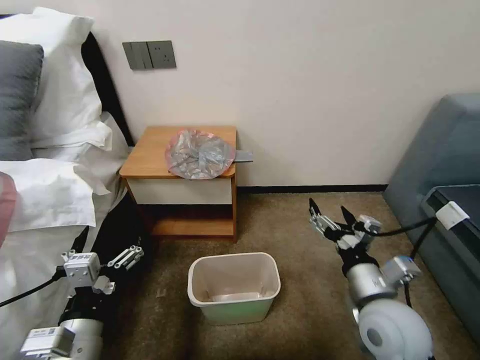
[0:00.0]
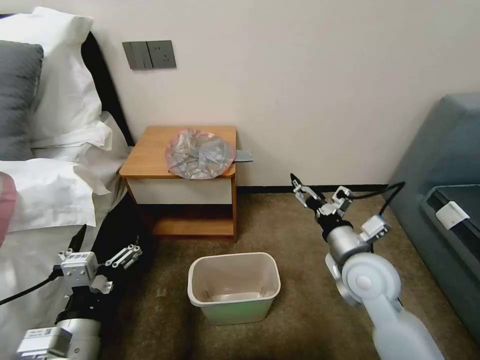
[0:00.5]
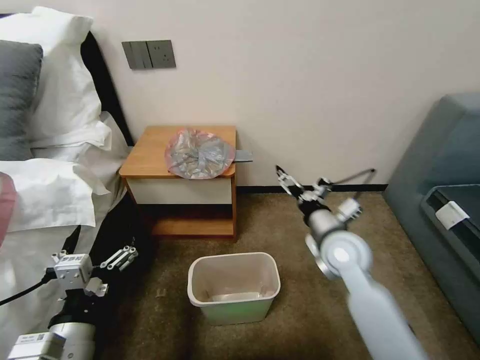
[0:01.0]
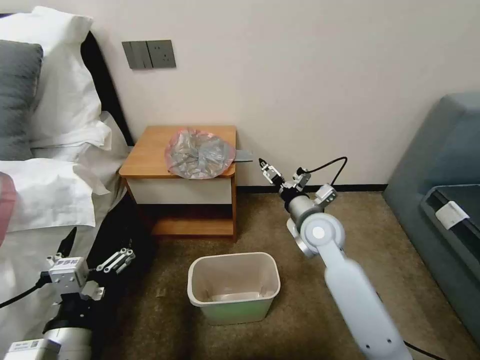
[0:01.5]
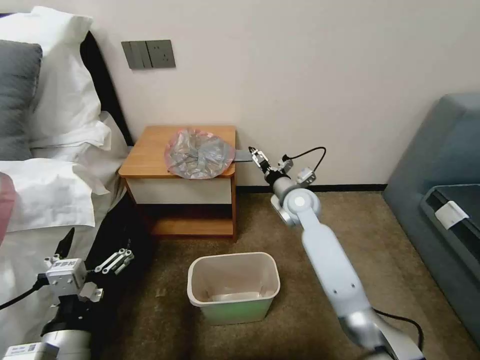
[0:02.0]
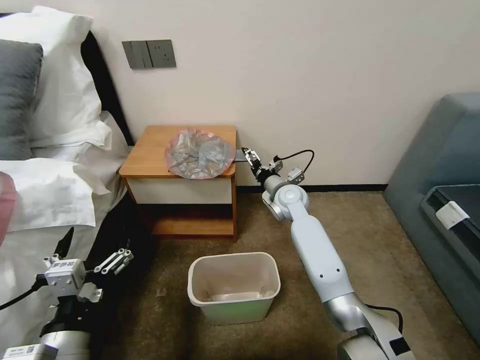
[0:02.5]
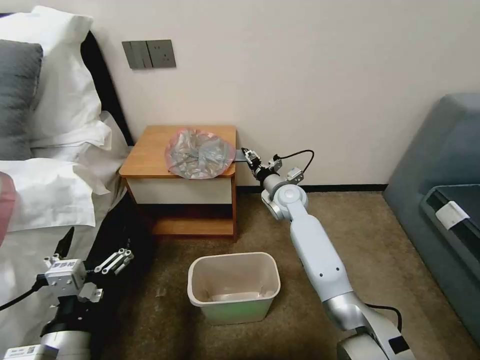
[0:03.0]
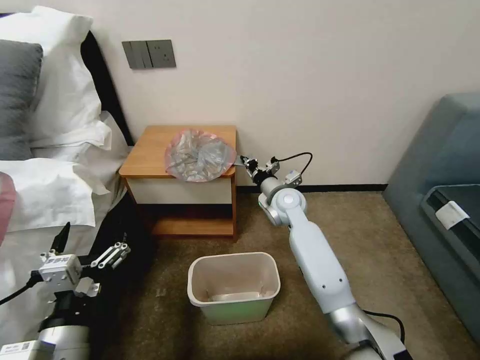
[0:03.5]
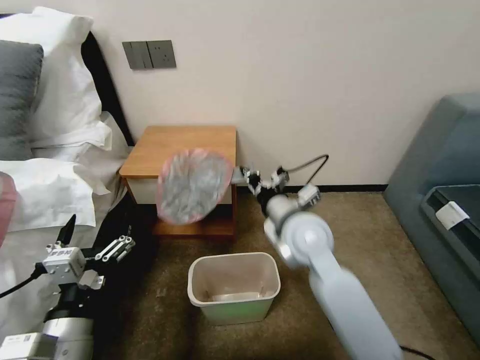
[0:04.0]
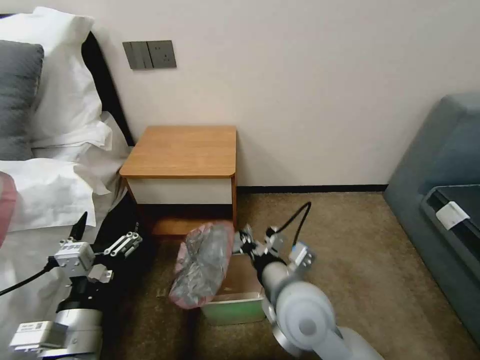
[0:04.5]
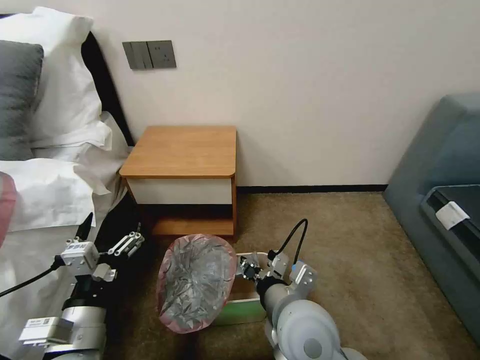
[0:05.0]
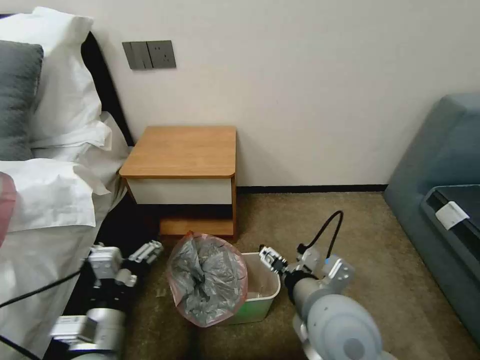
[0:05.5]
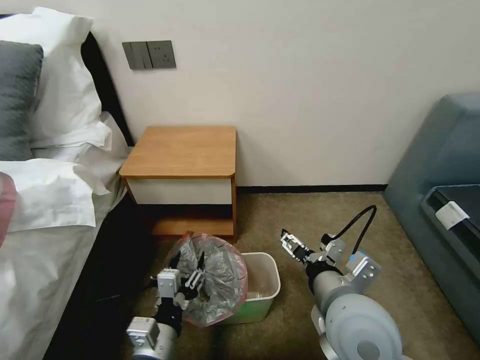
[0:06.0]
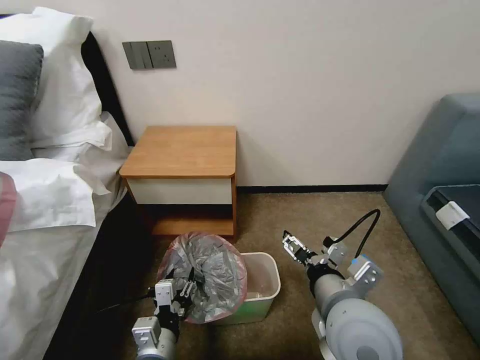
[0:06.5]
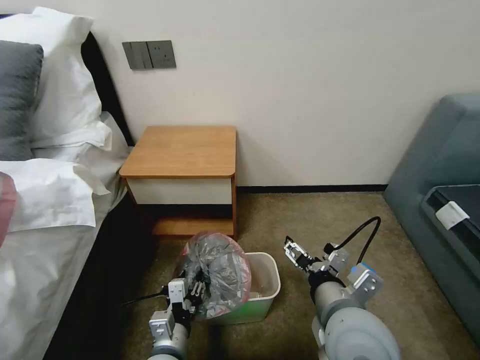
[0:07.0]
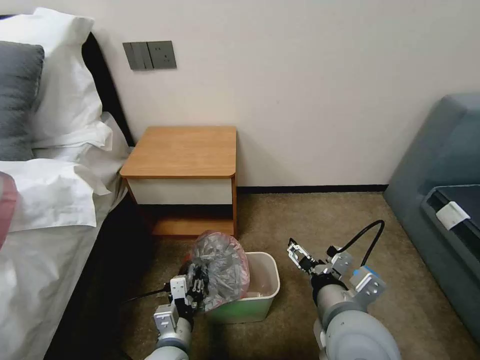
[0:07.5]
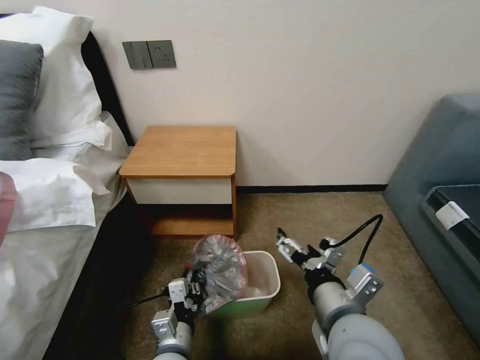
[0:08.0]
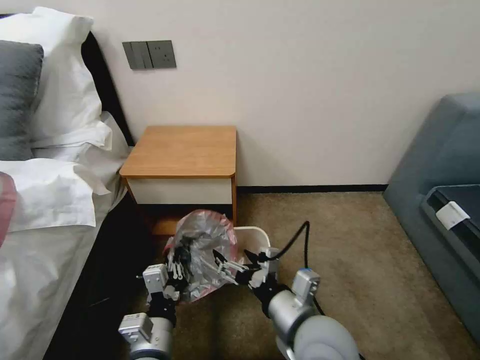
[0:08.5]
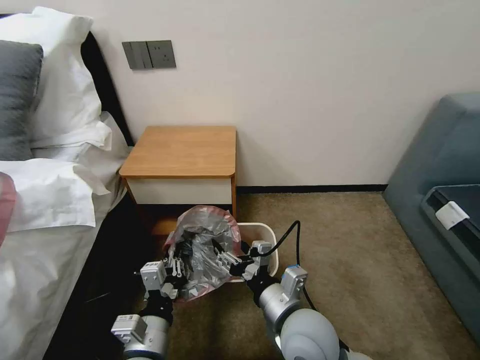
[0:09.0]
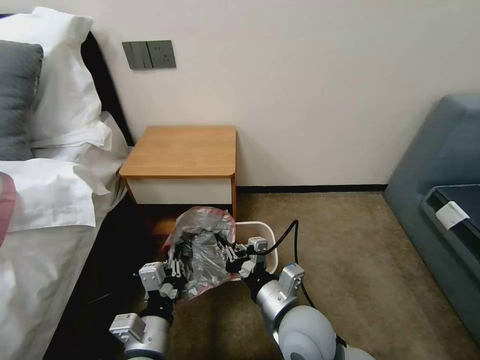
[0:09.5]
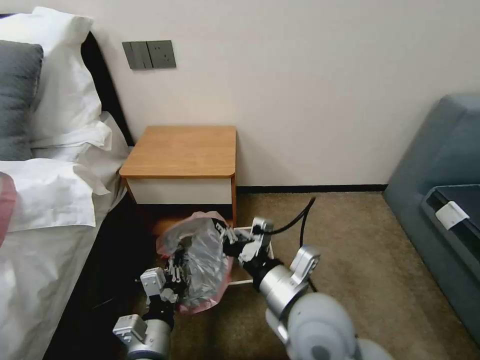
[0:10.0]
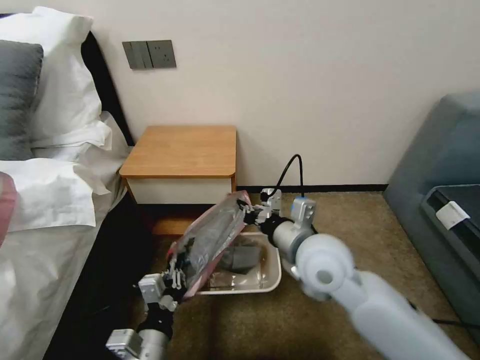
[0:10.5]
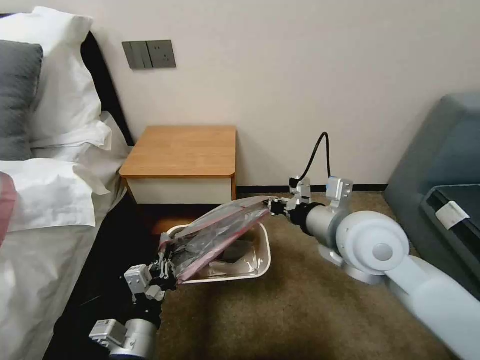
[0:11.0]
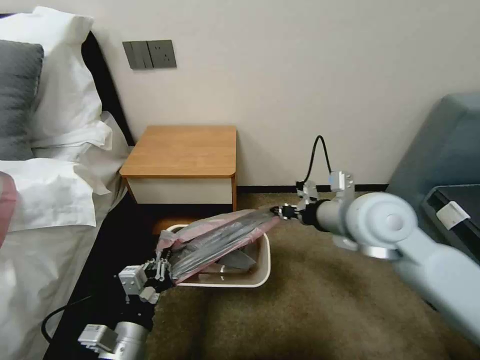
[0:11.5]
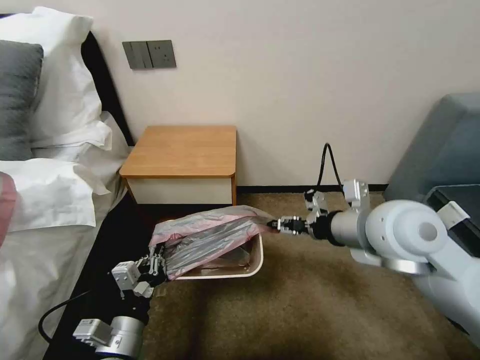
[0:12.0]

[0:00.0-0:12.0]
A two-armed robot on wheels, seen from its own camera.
Task of the whole recording: Pick up the garbage bag from the table and place it over the trash can.
0:00.0 to 0:02.0: The right gripper is displaced forward by some 30 cm.
0:02.0 to 0:04.0: The right gripper travels backward and upward by some 15 cm, and closes its fingers.
0:04.0 to 0:06.0: The right gripper shifts some 20 cm backward, and opens up; the left gripper travels downward and to the right by approximately 10 cm, and closes.
0:06.0 to 0:08.0: The left gripper heads downward, covering about 5 cm, and closes.
0:08.0 to 0:10.0: The right gripper is displaced to the left by approximately 5 cm, and closes up. Meanwhile the left gripper goes roughly 5 cm upward.
0:10.0 to 0:12.0: The left gripper shifts approximately 5 cm to the left. The right gripper heads to the right, upward and forward, covering some 20 cm, and opens up.

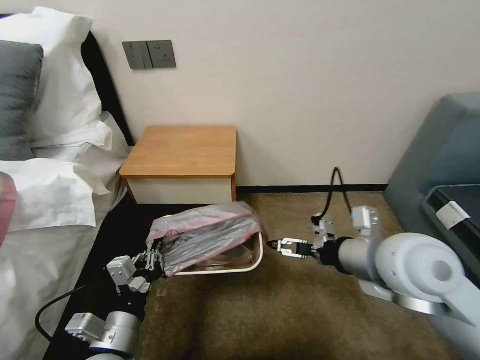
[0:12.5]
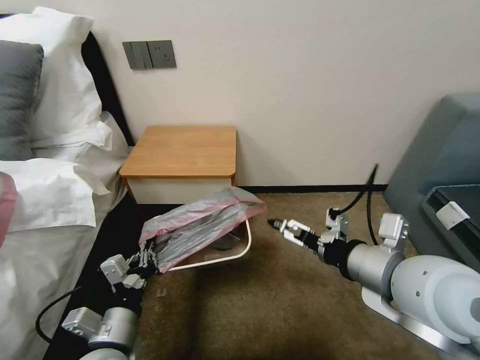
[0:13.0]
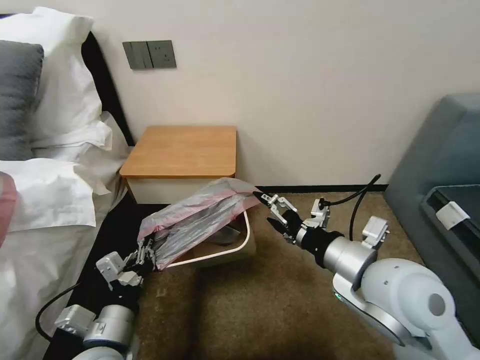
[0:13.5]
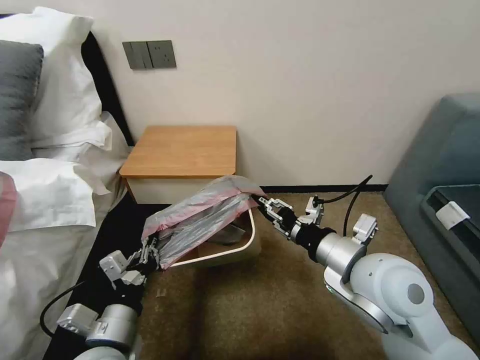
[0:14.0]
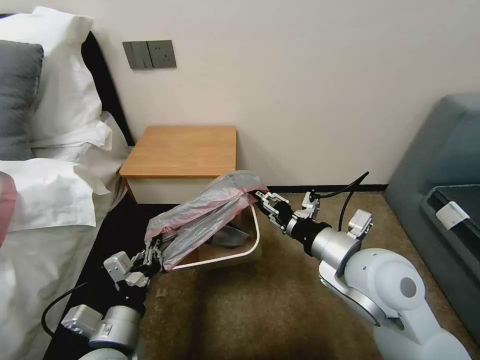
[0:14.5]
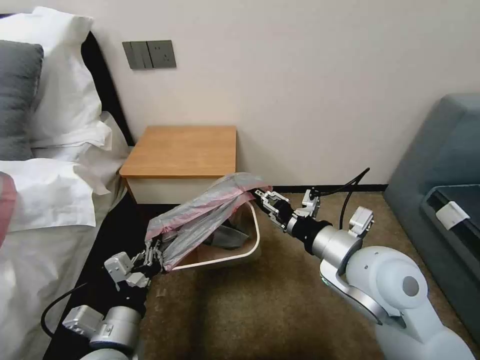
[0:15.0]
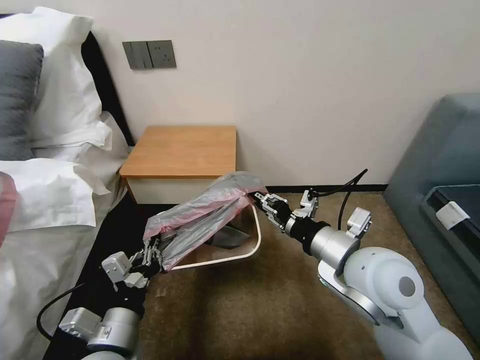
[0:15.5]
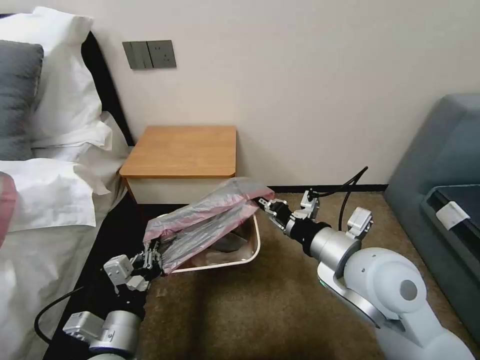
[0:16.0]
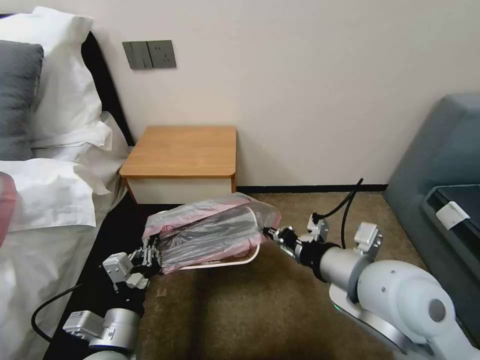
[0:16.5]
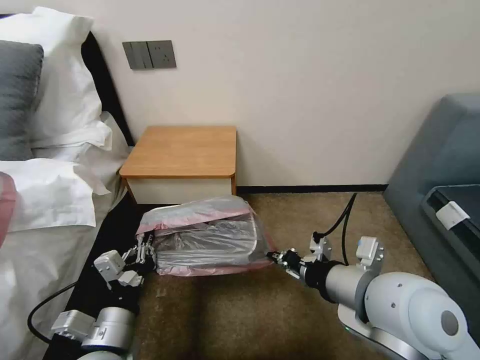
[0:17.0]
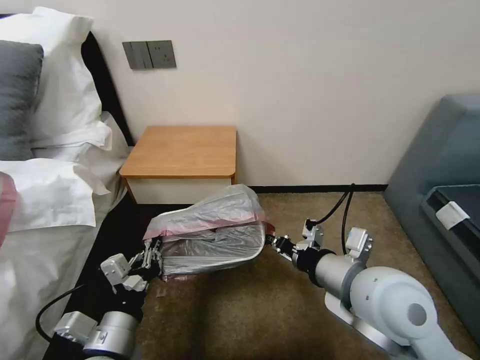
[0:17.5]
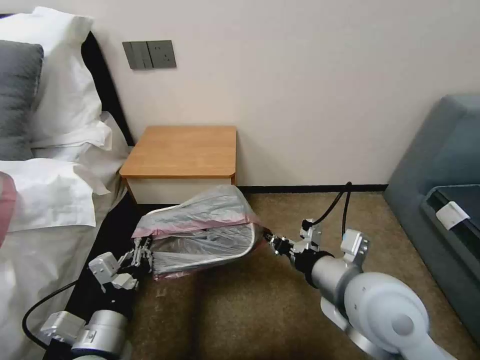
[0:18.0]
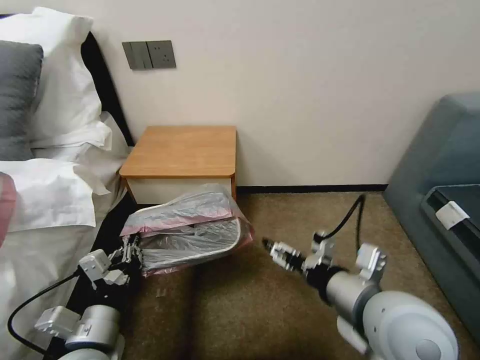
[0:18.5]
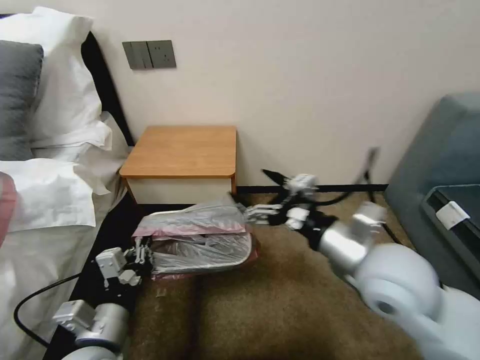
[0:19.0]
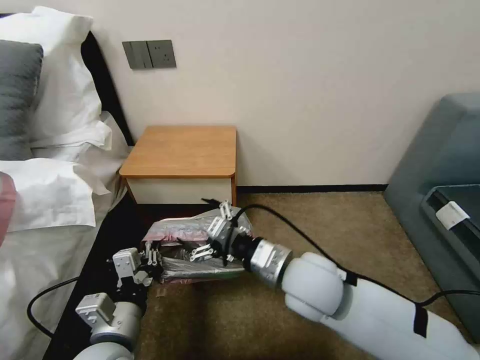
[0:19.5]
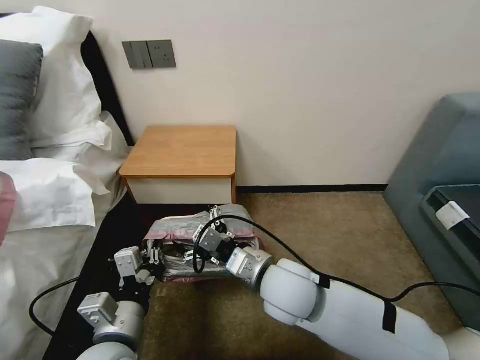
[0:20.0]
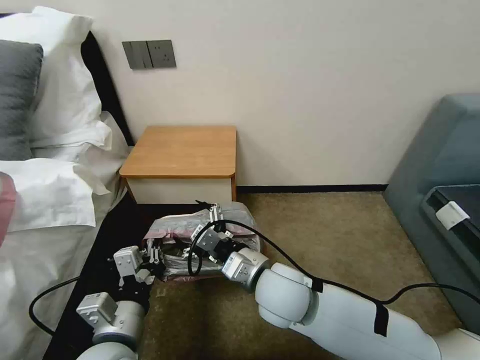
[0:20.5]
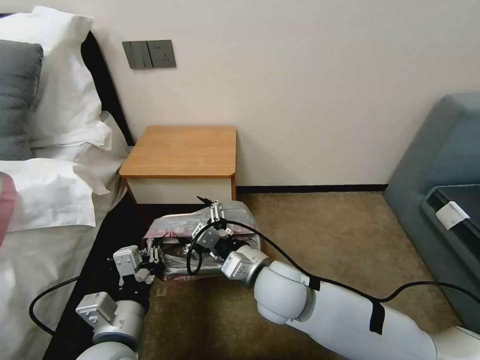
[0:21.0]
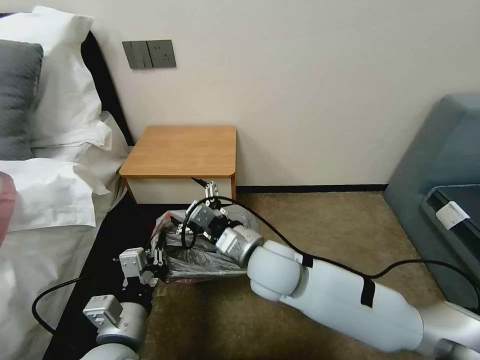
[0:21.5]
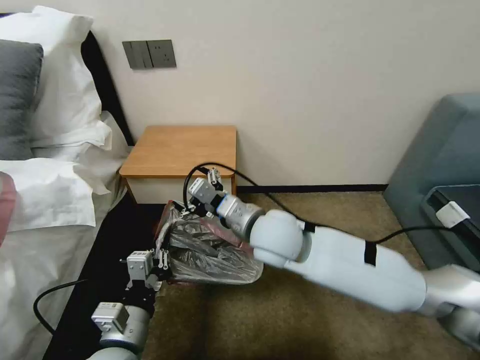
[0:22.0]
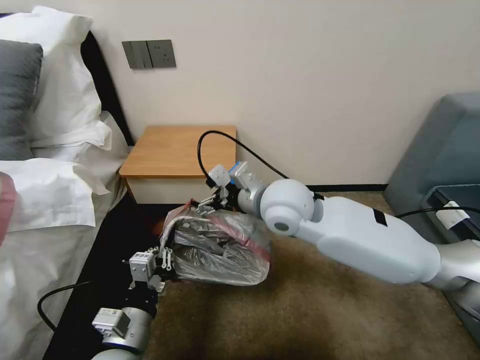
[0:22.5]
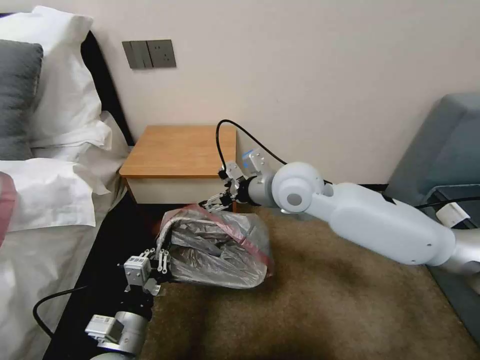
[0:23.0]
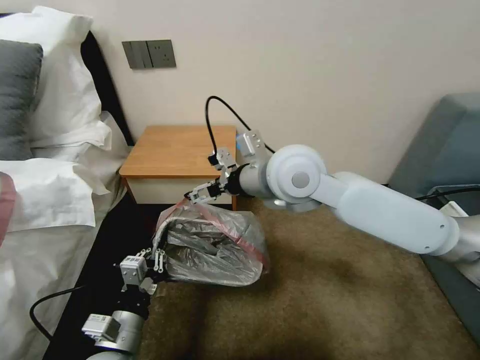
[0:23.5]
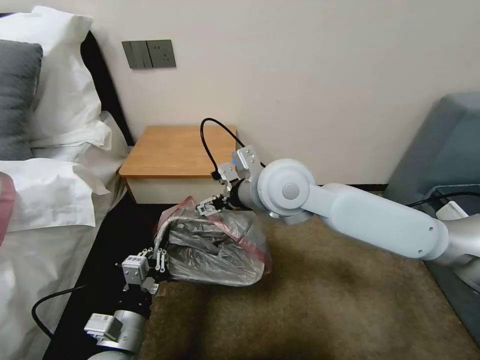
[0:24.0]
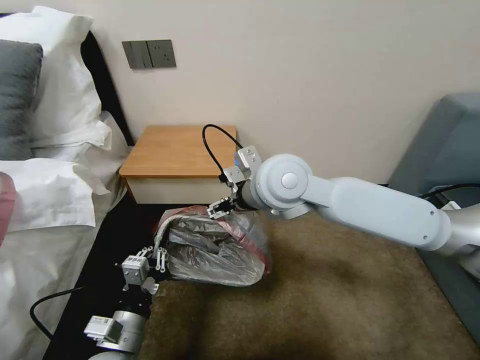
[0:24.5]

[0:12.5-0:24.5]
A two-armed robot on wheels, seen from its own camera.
Task of the whole recording: Pick up the garbage bag from the table and place it over the trash can.
0:12.5 to 0:14.5: The right gripper shifts by approximately 5 cm, and closes up.
0:14.5 to 0:16.5: The right gripper closes its fingers.
0:16.5 to 0:18.5: The right gripper opens.
0:18.5 to 0:20.5: The right gripper heads to the left, downward and forward, covering approximately 15 cm.
0:20.5 to 0:22.5: The right gripper moves forward and upward, approximately 15 cm.
0:22.5 to 0:24.5: The right gripper heads upward, covering roughly 5 cm.

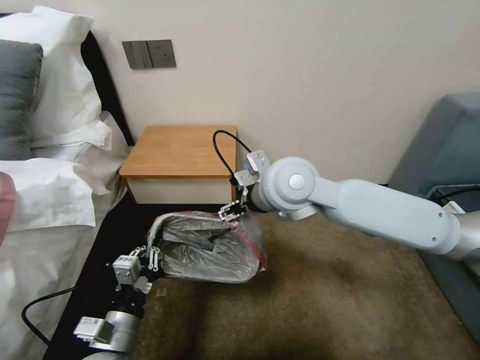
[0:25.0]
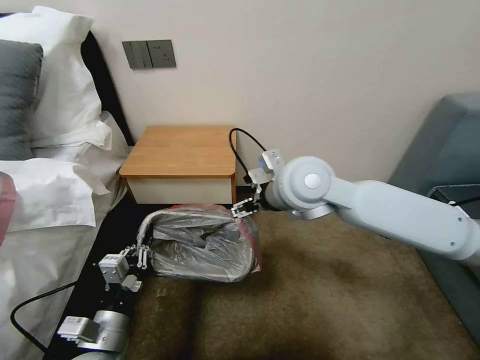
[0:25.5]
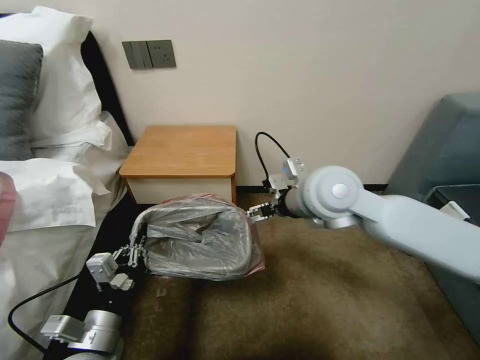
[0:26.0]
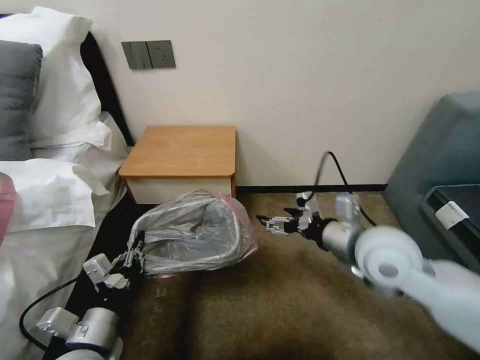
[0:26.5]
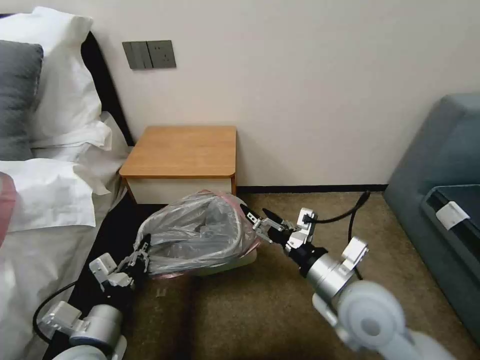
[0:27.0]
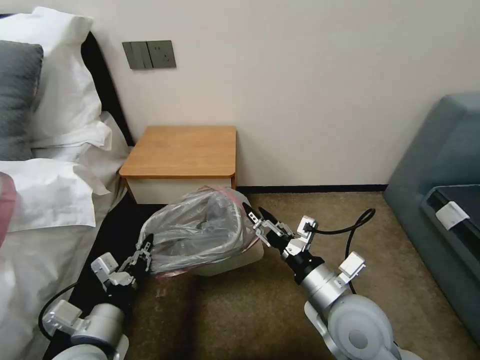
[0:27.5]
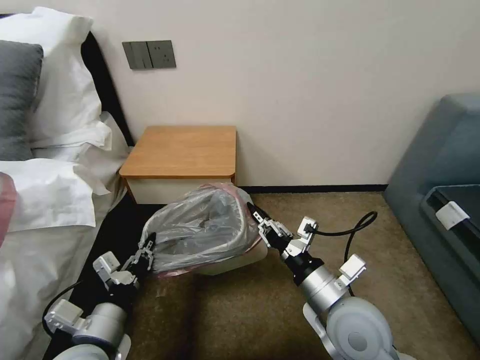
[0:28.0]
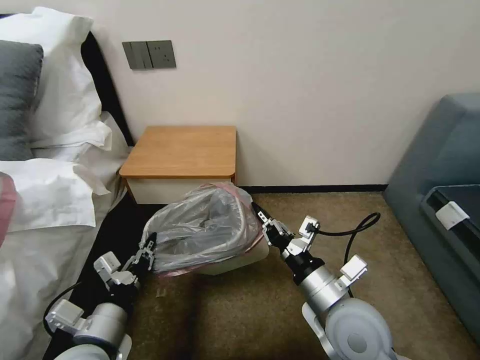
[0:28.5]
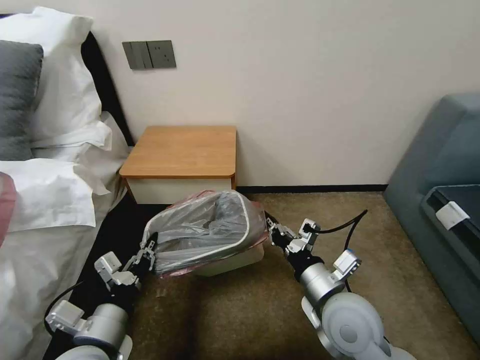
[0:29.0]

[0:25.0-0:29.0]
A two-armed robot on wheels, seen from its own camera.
Task of the whole recording: Pick up the garbage bag from the table and place it over the trash can.
0:25.0 to 0:27.0: The right gripper goes about 25 cm backward, downward and to the right.
0:27.0 to 0:29.0: The right gripper closes.
